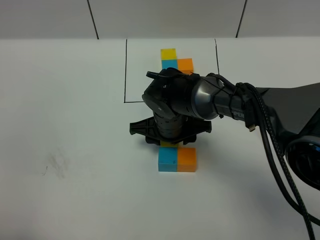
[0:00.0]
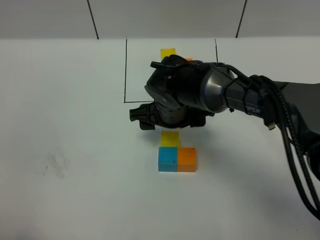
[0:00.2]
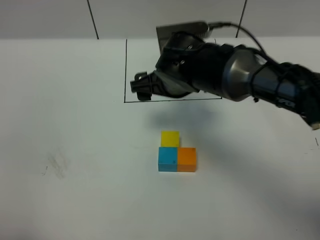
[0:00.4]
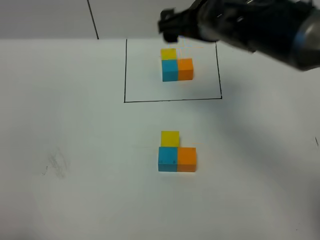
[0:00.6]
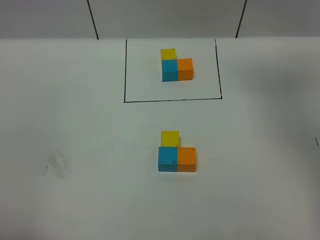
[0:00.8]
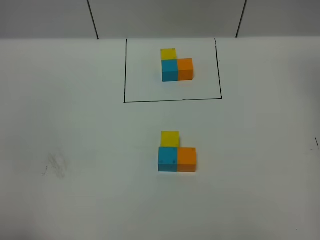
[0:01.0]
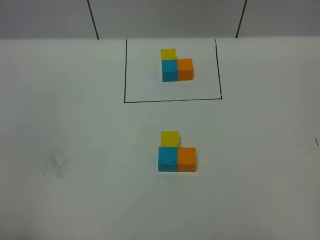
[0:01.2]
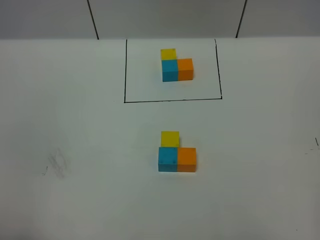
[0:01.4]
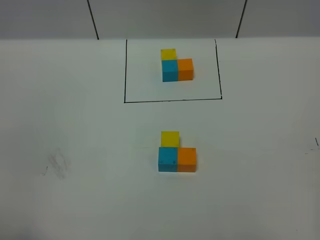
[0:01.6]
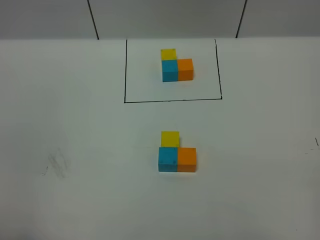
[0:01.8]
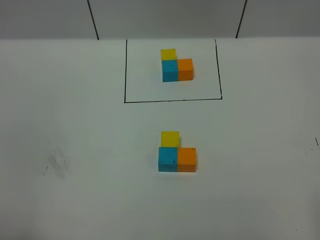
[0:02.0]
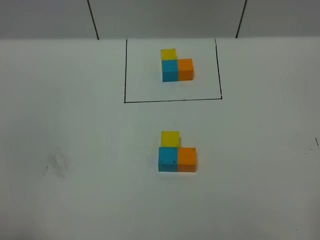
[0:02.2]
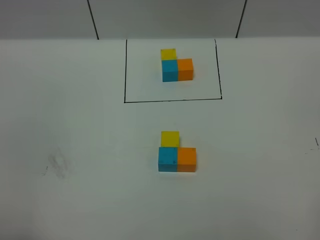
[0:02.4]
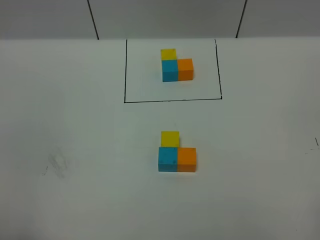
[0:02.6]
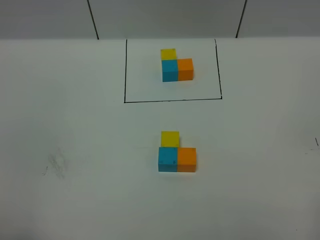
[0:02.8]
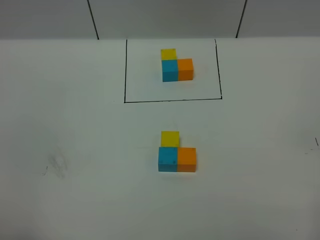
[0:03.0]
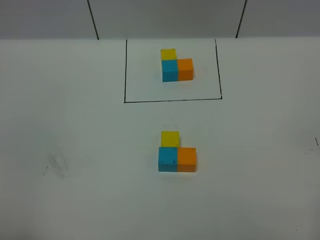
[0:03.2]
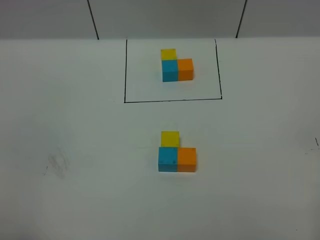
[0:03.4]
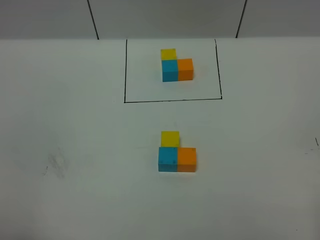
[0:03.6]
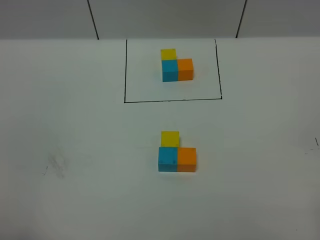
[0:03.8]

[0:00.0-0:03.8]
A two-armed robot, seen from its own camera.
Task of the whole recording: According to the building block template in front, assemble the scattered blocks together.
0:00.0 to 0:01.2: The right gripper is displaced upward and to the right by roughly 50 cm, and opens up.

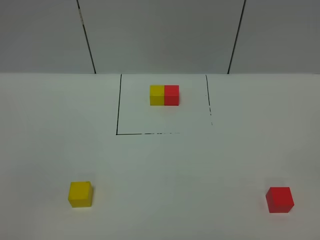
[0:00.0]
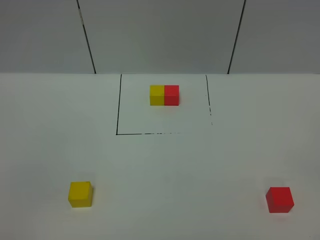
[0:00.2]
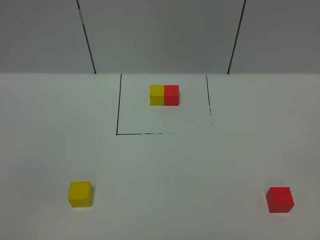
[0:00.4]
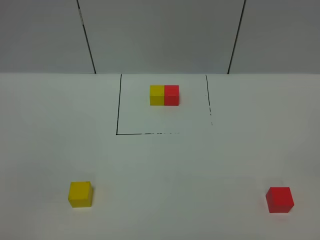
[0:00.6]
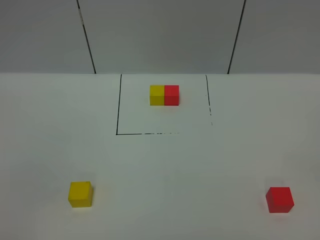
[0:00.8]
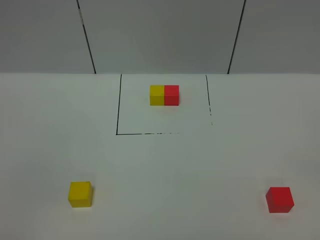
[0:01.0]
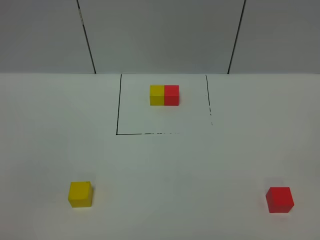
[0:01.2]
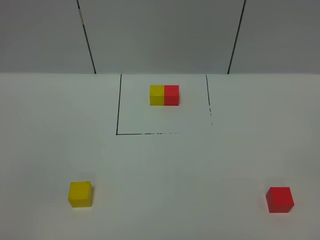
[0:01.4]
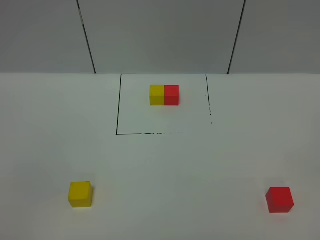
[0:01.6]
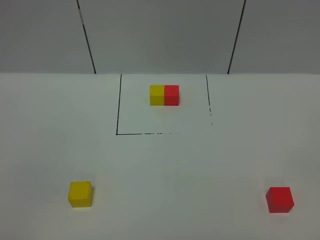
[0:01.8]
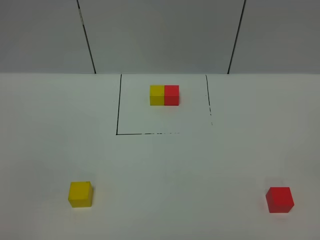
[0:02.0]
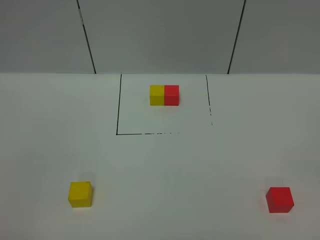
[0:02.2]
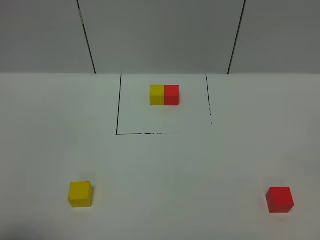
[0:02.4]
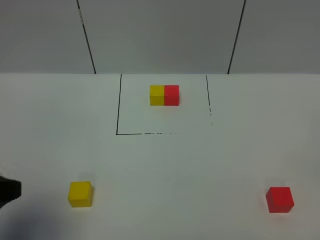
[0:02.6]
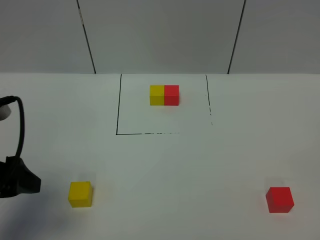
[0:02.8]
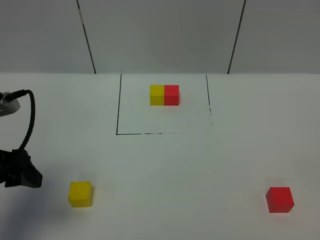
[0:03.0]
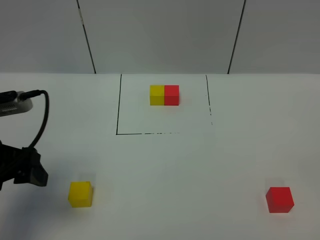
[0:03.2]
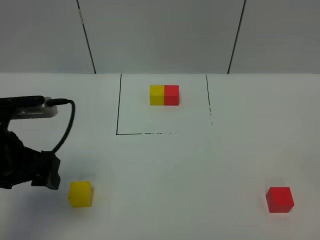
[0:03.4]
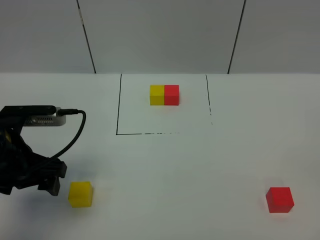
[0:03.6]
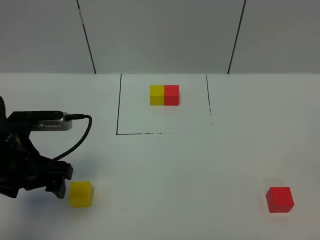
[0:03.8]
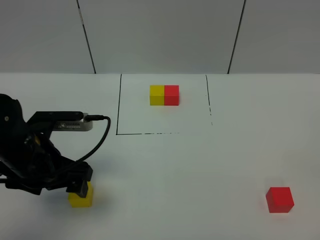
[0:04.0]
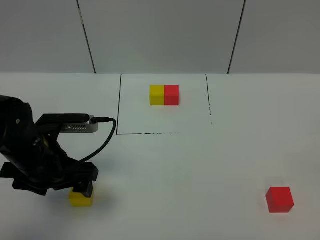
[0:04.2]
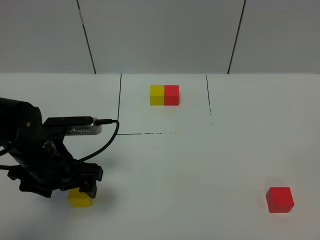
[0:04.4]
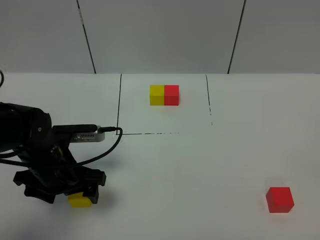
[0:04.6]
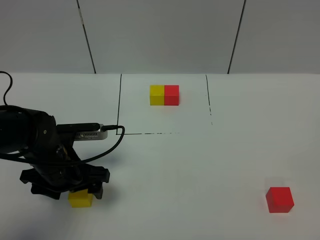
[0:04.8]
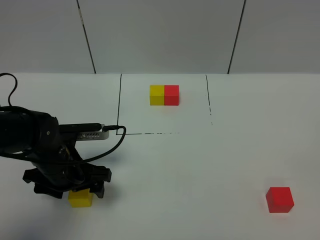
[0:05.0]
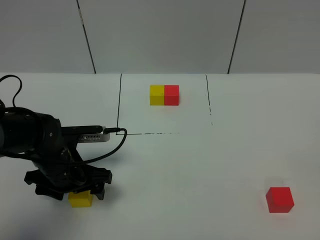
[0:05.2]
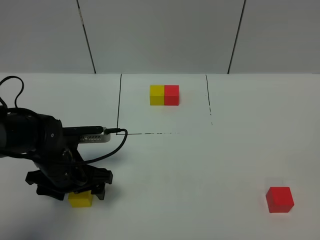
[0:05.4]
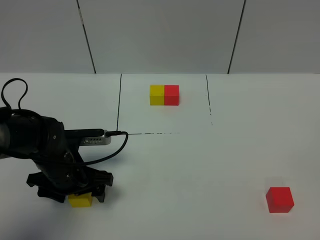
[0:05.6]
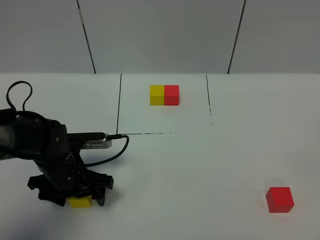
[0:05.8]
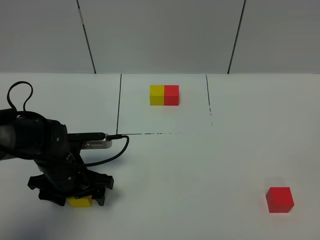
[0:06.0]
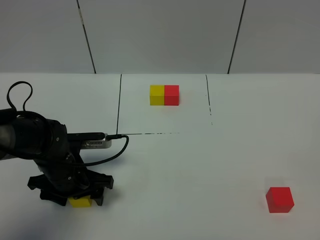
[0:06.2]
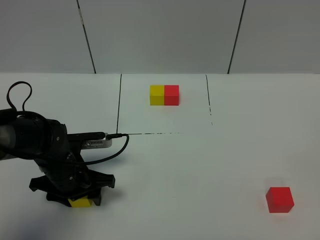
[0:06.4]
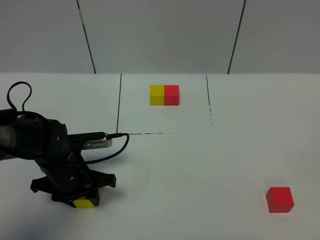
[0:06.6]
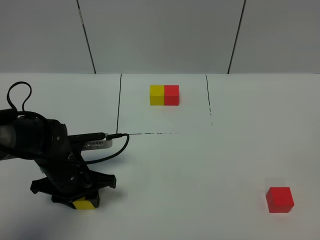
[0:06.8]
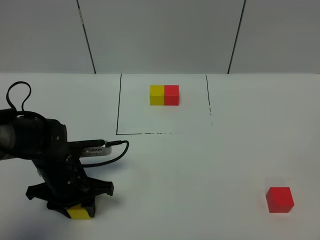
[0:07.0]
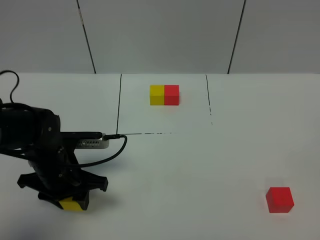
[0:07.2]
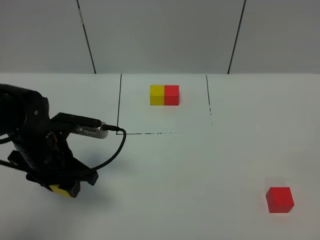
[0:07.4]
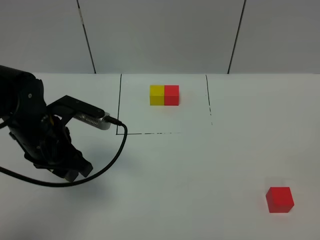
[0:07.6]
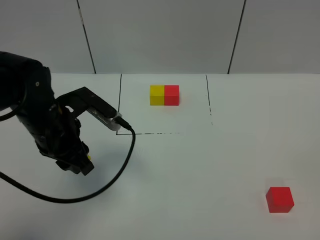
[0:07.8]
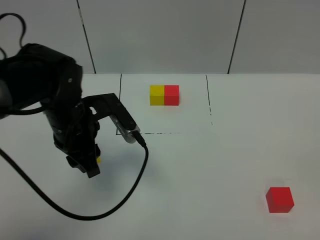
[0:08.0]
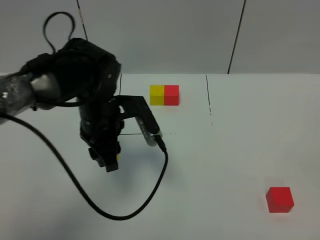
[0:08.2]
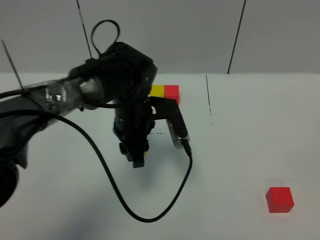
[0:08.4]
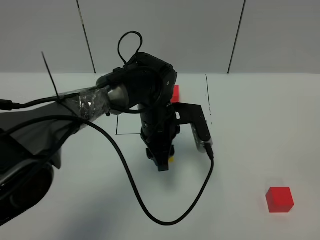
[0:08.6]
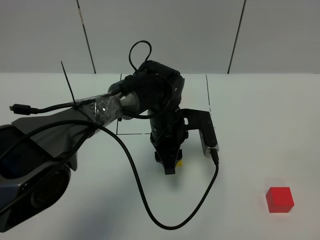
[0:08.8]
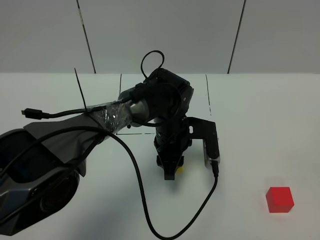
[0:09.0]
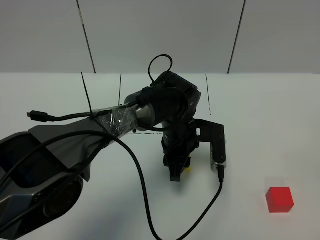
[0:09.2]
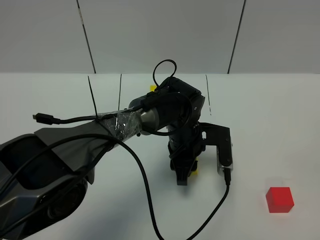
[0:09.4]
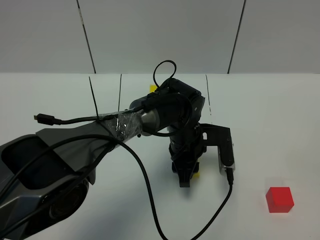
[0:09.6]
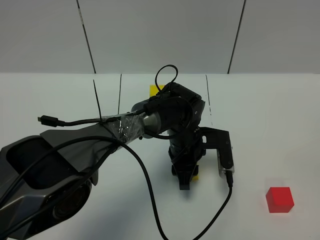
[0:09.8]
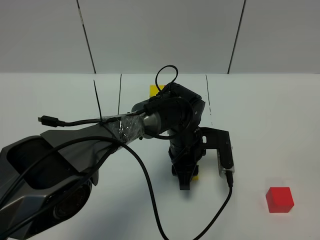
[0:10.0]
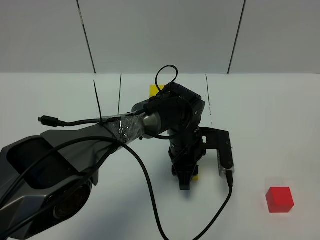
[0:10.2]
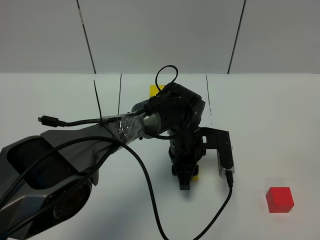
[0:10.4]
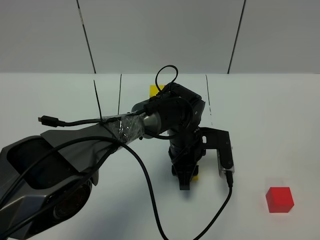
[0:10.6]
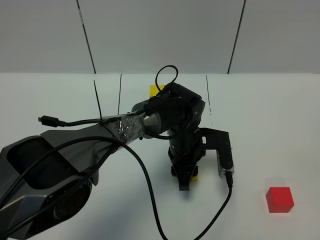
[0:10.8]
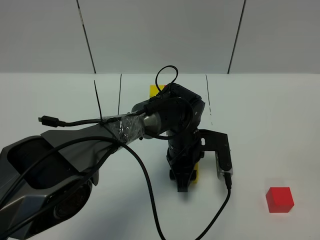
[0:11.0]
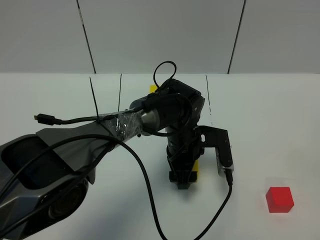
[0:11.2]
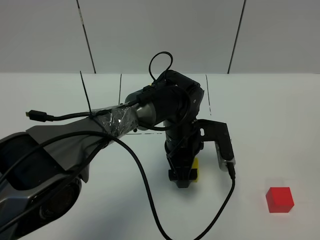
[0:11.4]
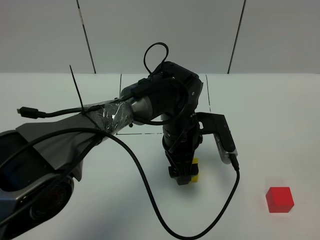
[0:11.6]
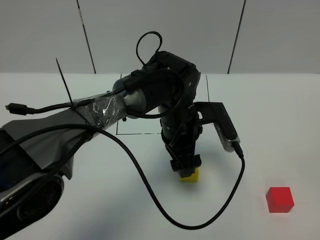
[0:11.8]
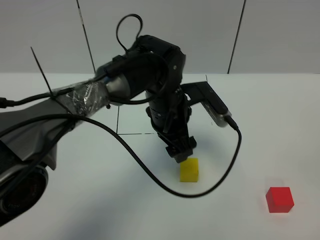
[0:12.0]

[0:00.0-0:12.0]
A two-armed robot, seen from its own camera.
Task of the whole recording: According to the building block template in front, assemble the scattered blocks together.
Step, 0:02.6 to 0:11.0: Put the yellow cube in the center of the table.
0:00.0 to 0:01.6: Both grippers stay put.
0:01.6 to 0:03.0: The left gripper goes approximately 25 cm forward.
0:03.0 to 0:04.4: The left gripper is displaced downward, to the right and forward by roughly 15 cm.
0:04.4 to 0:06.0: The left gripper travels downward by roughly 5 cm.
0:06.0 to 0:07.6: The left gripper moves upward, roughly 10 cm, and closes its fingers.
0:07.6 to 0:09.0: The left gripper travels to the right and downward by approximately 25 cm.
0:09.0 to 0:10.4: The grippers make only small movements.
0:10.4 to 0:12.0: The left gripper travels upward by some 10 cm, and opens its fingers.

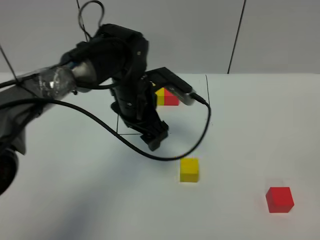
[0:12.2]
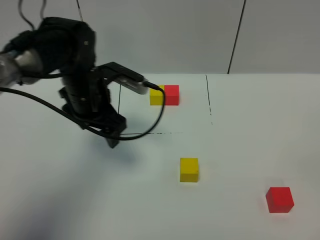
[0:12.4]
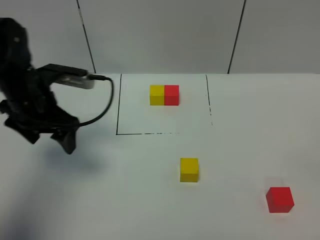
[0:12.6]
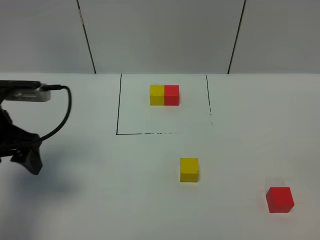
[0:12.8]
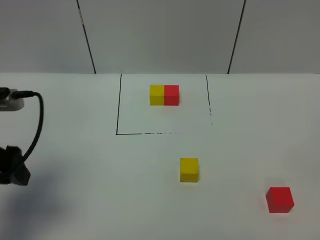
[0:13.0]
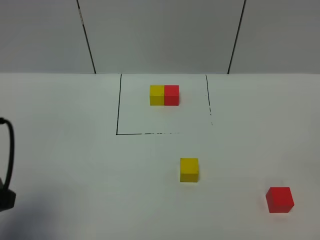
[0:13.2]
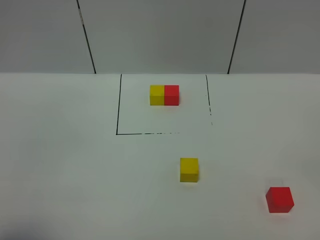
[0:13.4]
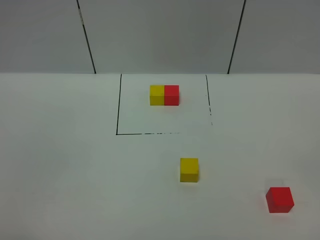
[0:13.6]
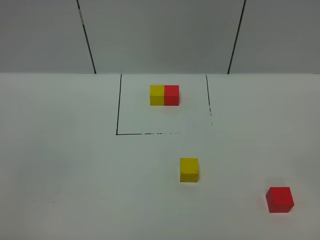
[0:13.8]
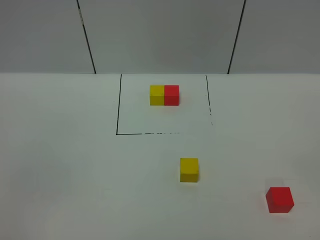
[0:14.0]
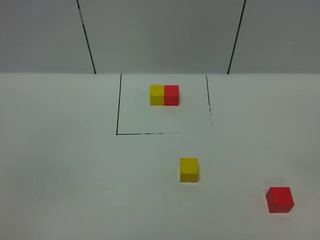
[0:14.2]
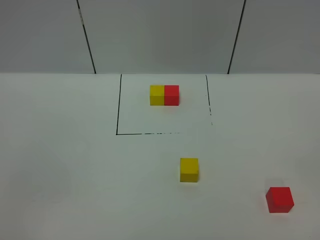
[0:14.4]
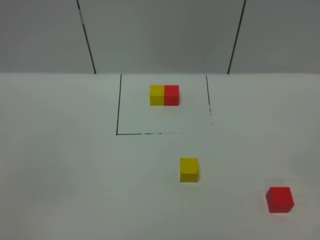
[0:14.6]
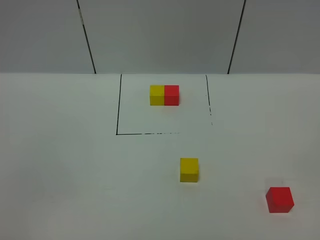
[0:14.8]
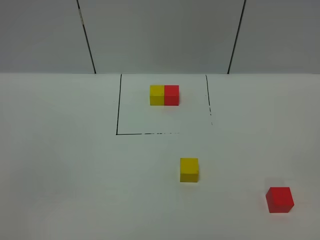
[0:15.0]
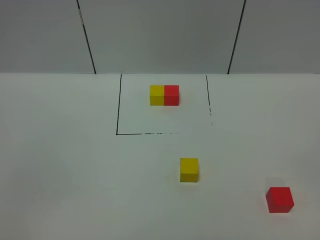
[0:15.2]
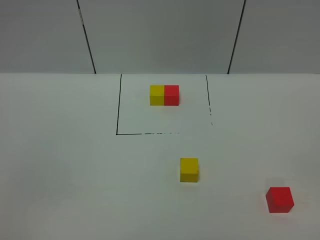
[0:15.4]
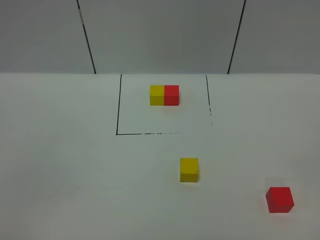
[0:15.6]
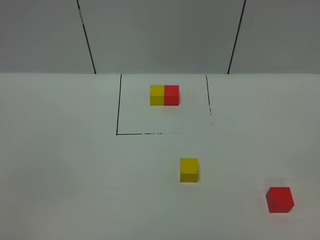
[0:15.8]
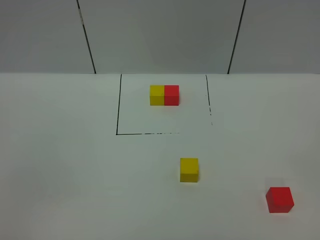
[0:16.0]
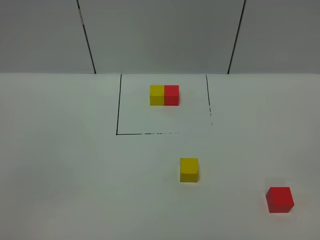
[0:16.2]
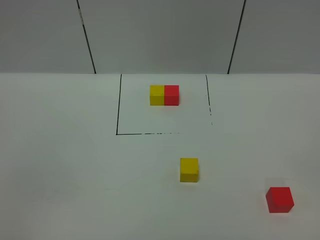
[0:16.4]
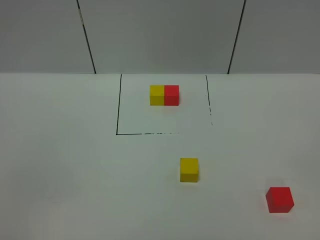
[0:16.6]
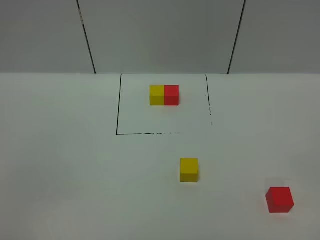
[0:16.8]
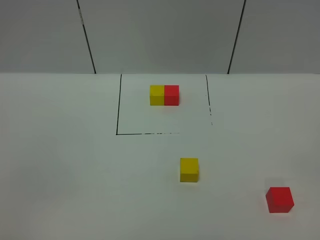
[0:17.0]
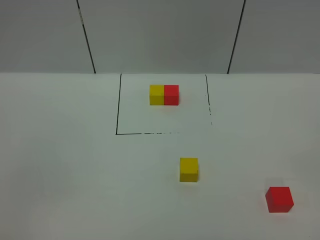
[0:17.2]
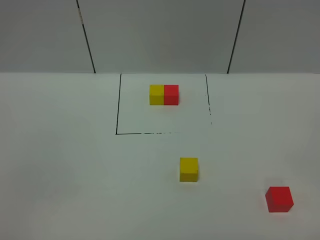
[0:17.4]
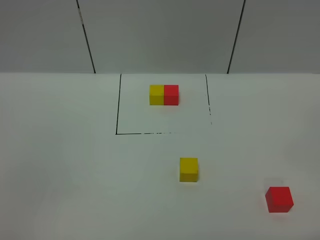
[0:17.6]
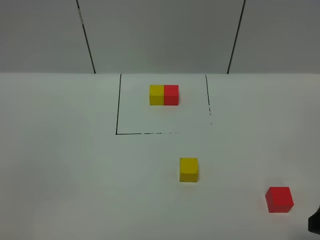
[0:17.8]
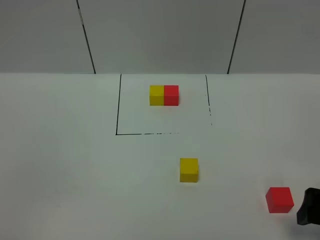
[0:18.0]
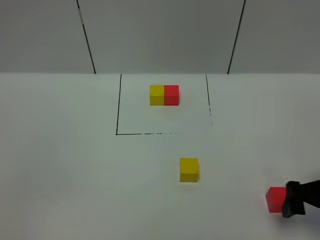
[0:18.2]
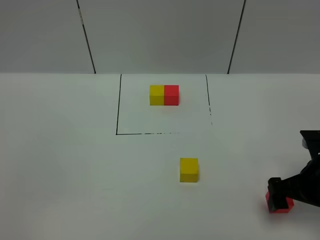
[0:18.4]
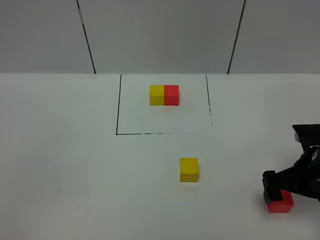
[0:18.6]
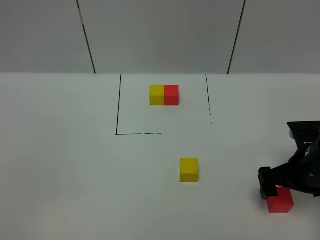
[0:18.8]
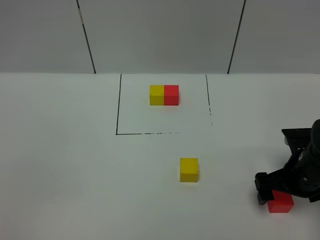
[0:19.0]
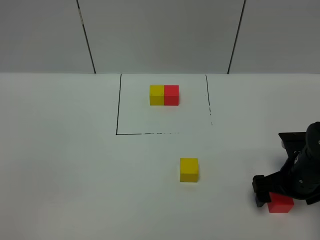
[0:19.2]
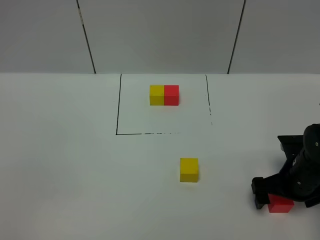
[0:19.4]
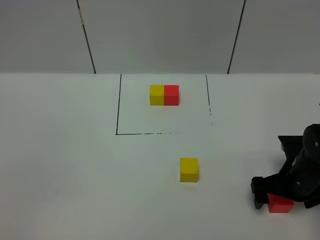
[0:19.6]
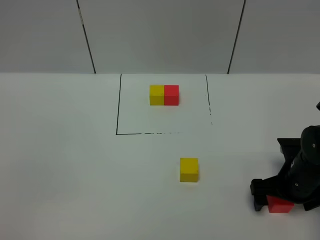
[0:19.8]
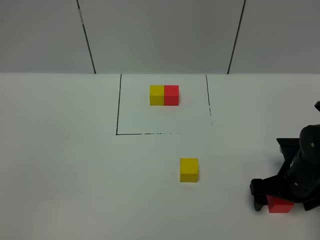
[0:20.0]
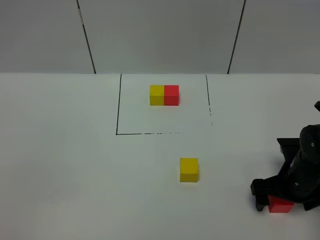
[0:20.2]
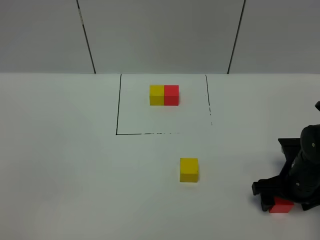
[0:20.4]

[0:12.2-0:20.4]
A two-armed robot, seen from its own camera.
Task of the whole recording: According to the building block template in front, assemble the scattered blocks together.
0:12.2 to 0:13.8: The left gripper goes approximately 40 cm backward and to the left.
0:17.2 to 0:18.8: The right gripper goes approximately 30 cm forward and downward.
0:18.8 to 0:20.4: The right gripper is displaced downward by roughly 5 cm, and closes up.
